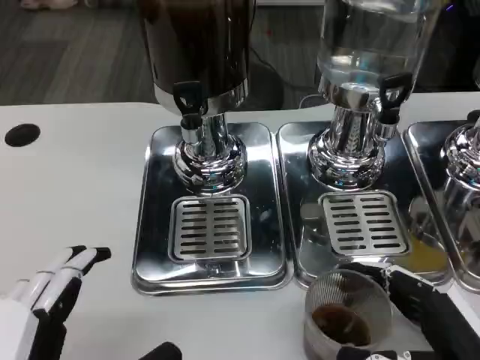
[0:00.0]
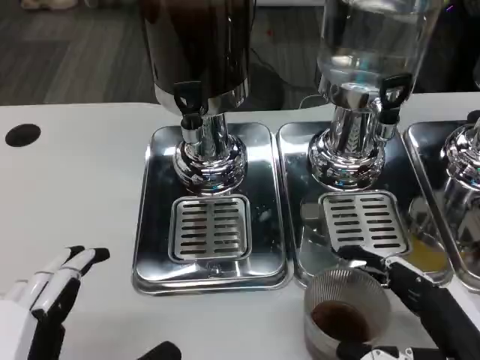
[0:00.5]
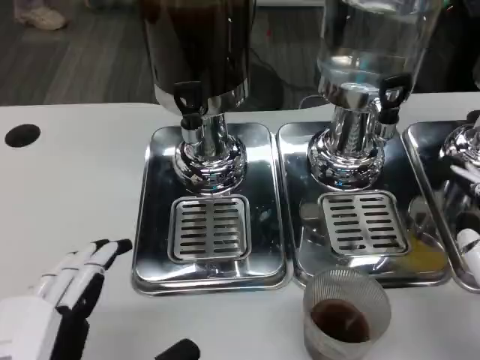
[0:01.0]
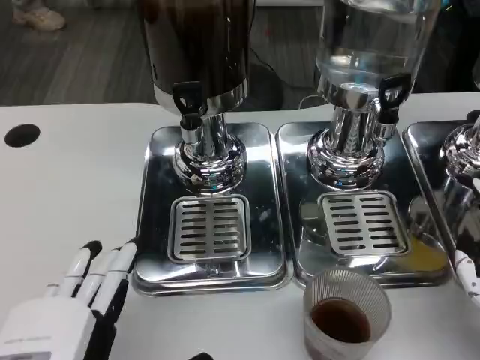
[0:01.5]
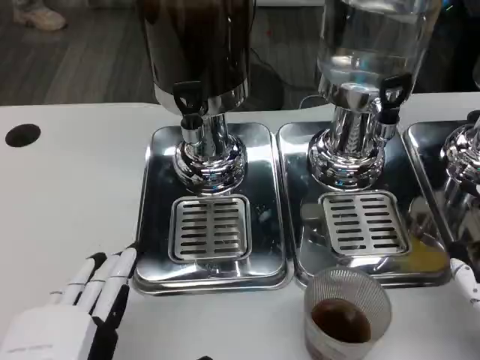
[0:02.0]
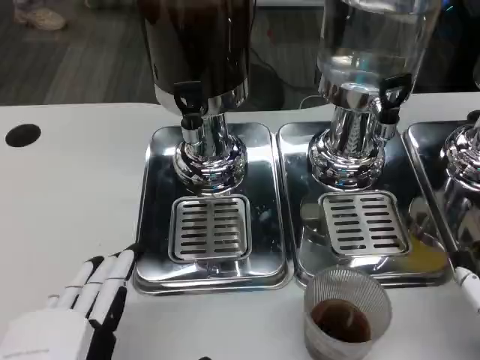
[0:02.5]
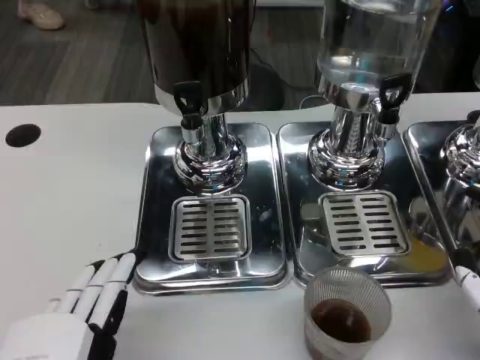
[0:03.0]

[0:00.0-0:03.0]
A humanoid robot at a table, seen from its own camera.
Task of the whole recording: Grasp the cup under the faucet to collect the drink, then remove the cup.
0:00.0 to 0:01.5: The right hand shifts approximately 5 cm upward.
0:01.5 to 0:03.0: There are only small adjustments of the hands.

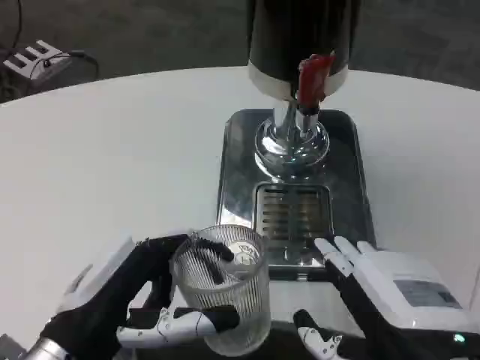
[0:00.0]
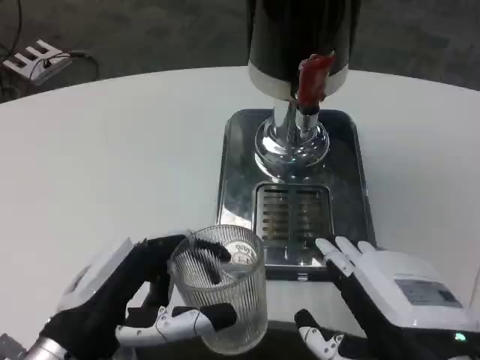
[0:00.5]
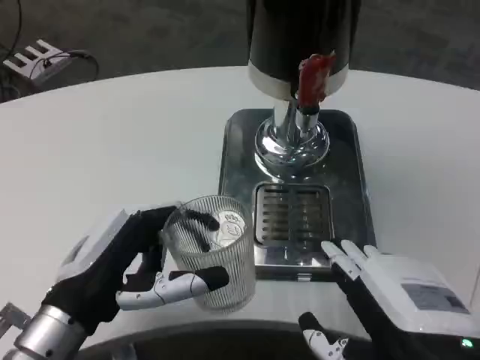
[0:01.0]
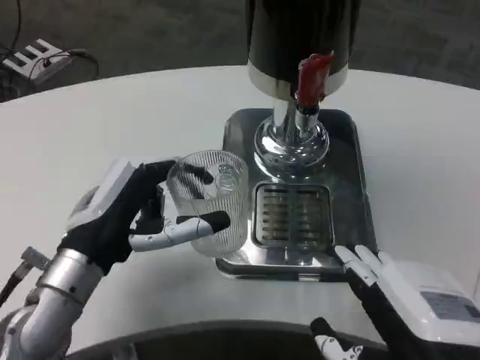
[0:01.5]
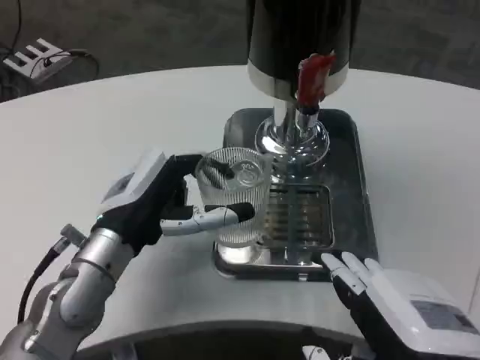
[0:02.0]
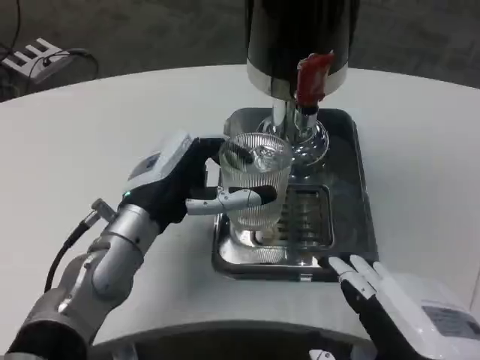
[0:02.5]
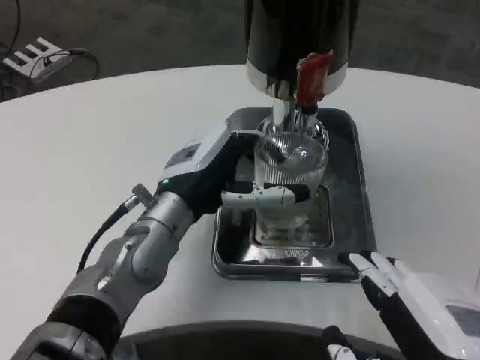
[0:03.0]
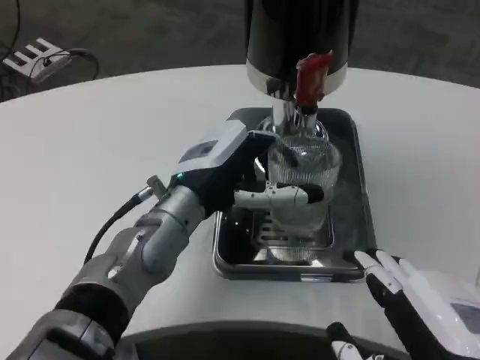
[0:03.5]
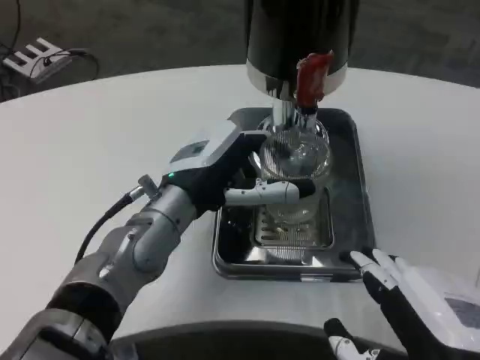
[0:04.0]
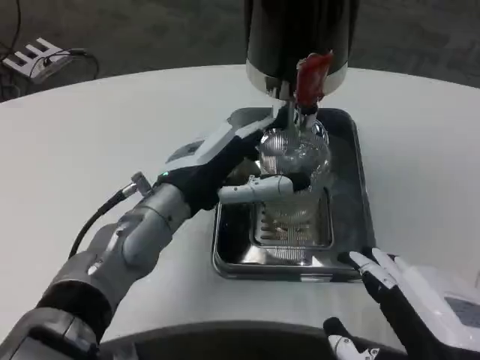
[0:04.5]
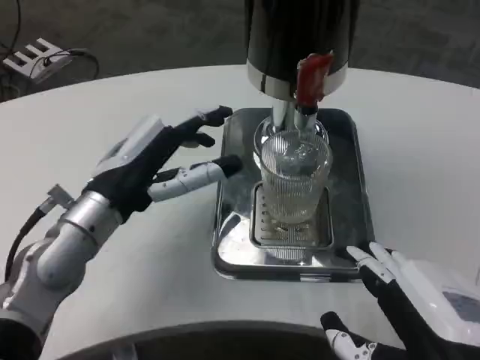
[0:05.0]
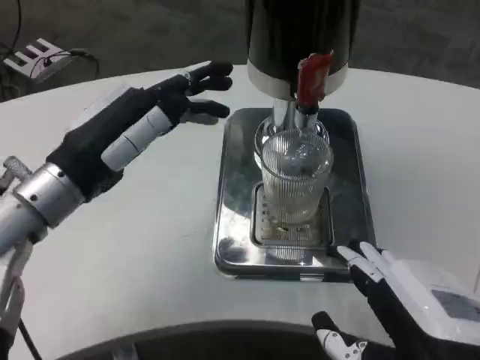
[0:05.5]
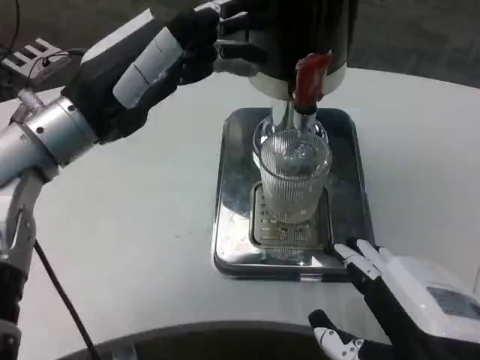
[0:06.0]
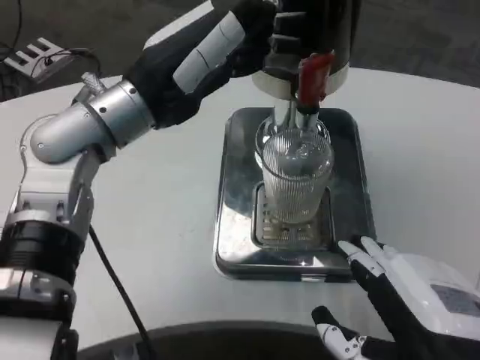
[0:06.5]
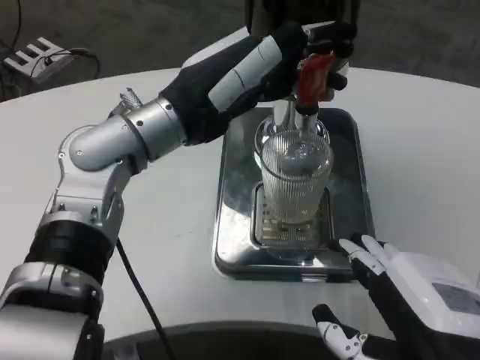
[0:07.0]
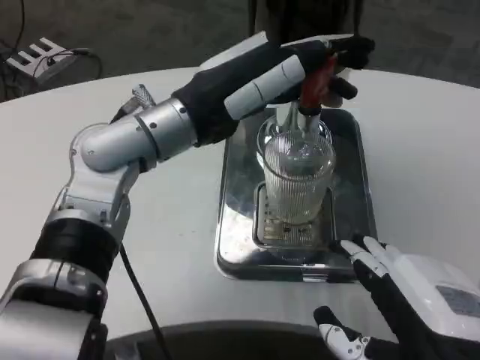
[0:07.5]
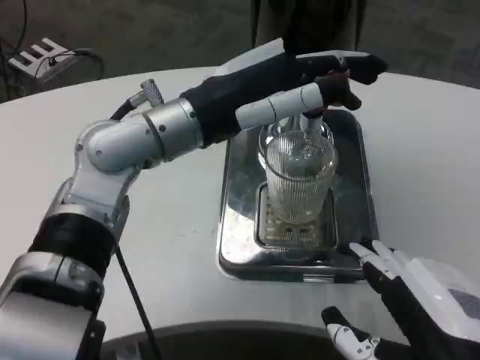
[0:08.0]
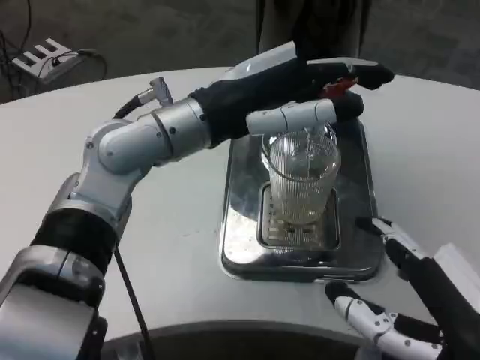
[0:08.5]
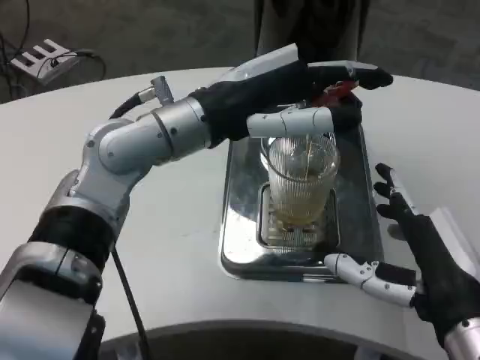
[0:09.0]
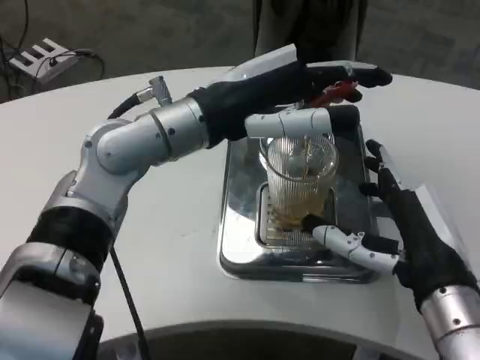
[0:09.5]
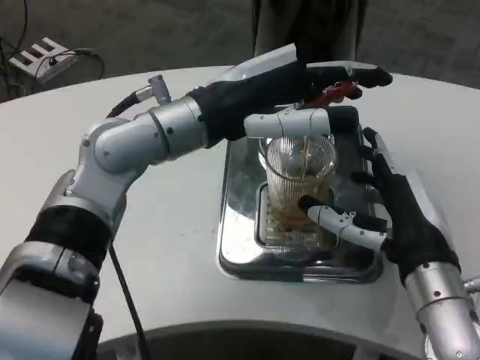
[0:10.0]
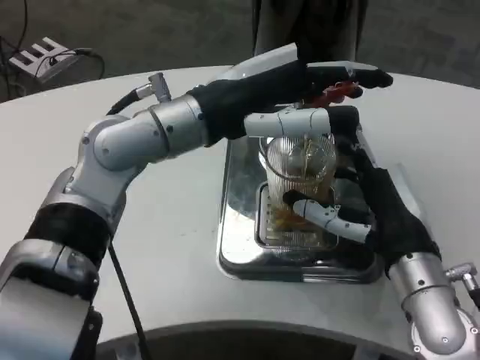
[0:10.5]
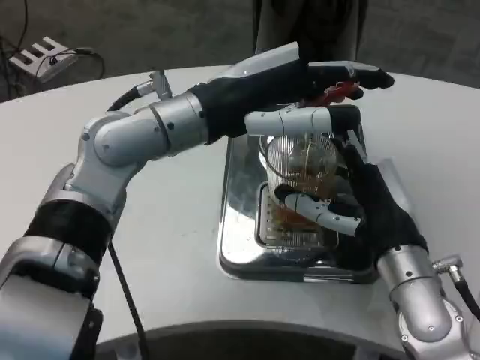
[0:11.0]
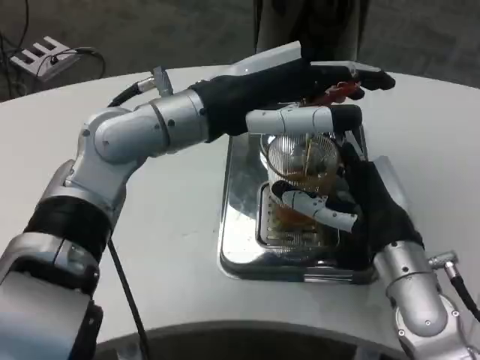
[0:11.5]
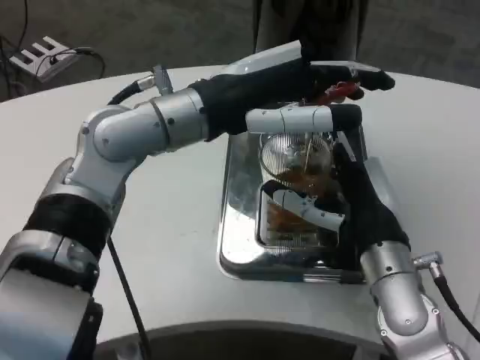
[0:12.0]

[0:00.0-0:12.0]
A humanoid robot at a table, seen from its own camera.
Task of the whole recording: Grasp the cup under the faucet to collect the drink, then remove the cup.
0:00.0 to 0:02.0: The left hand shifts approximately 10 cm forward.
0:02.0 to 0:04.0: The left hand is displaced to the right by some 5 cm.
0:04.0 to 0:06.0: The left hand travels upward and to the left by about 15 cm.
0:06.0 to 0:08.0: The left hand heads to the right, covering approximately 10 cm.
0:08.0 to 0:10.0: The right hand moves forward, some 15 cm.

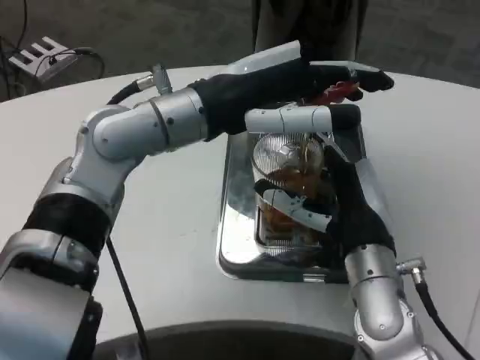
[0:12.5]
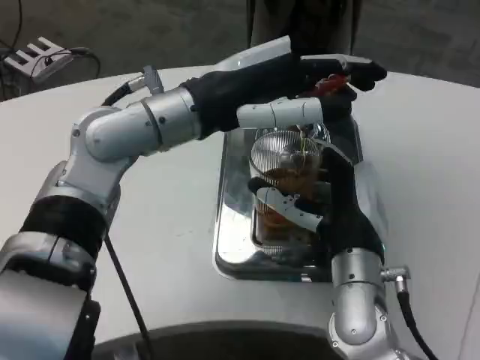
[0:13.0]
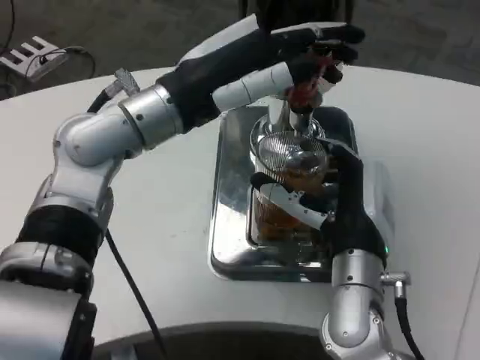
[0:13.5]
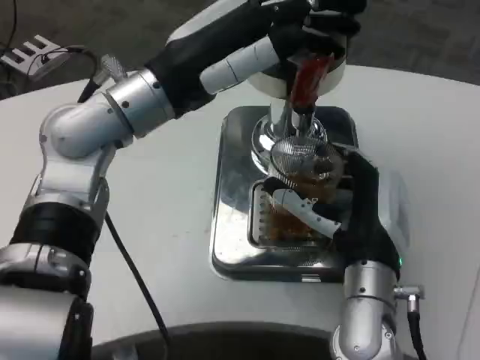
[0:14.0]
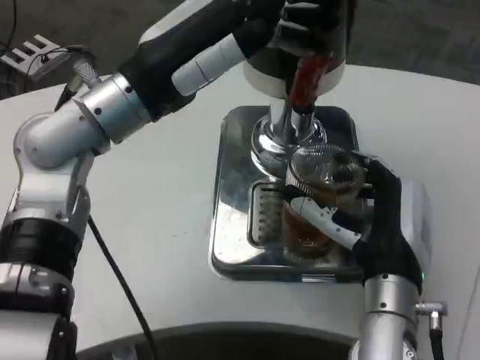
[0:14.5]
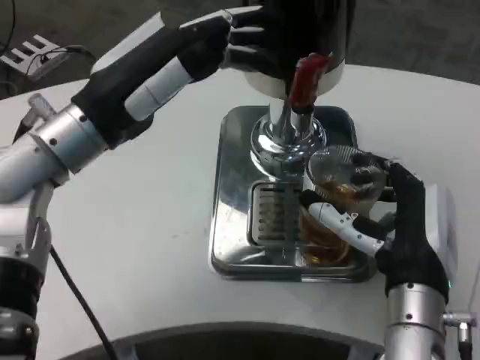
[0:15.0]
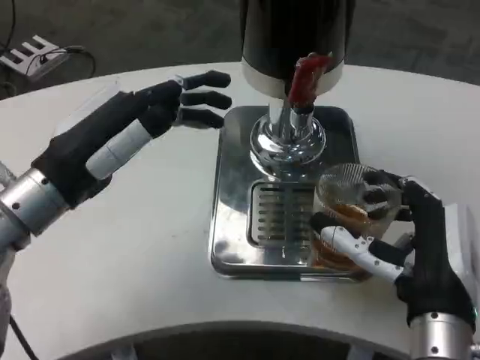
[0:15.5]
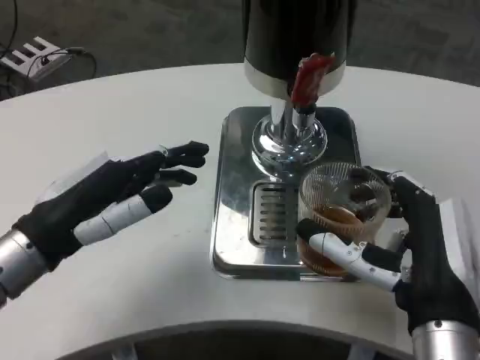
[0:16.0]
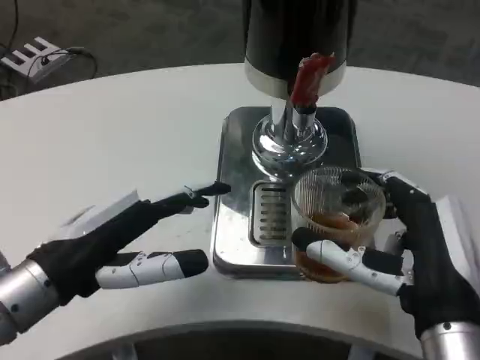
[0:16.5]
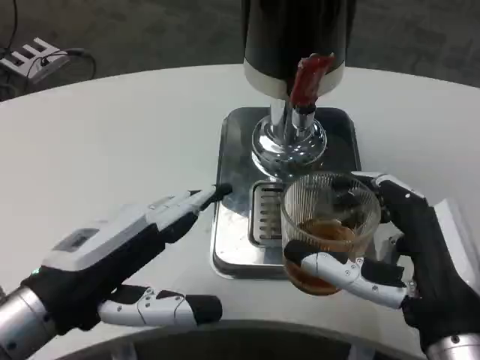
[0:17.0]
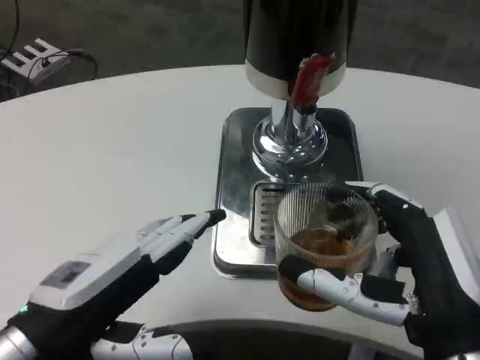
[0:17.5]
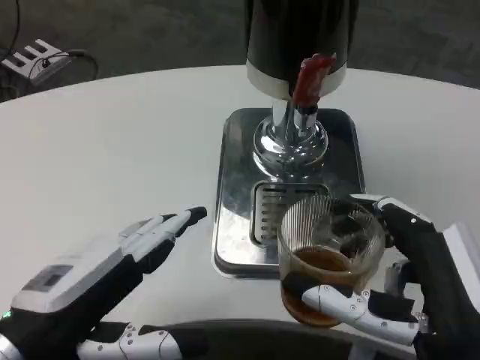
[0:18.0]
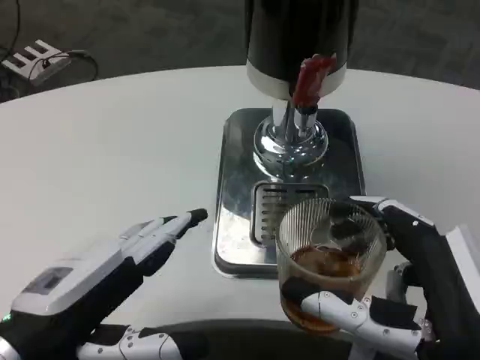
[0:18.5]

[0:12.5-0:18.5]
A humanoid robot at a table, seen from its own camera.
Task of the whole recording: Grasp the cup under the faucet to collect the drink, then remove the cup.
0:12.5 to 0:14.5: The left hand shifts by about 5 cm.
0:14.5 to 0:16.5: The right hand moves backward, some 10 cm, while the left hand travels downward, backward and to the left by about 15 cm.
0:16.5 to 0:18.5: Both hands move backward, some 5 cm.

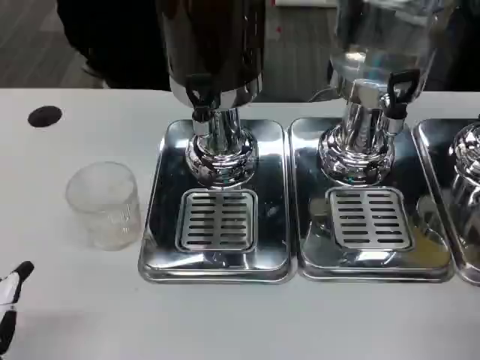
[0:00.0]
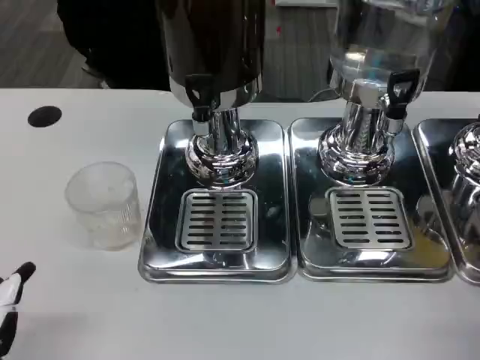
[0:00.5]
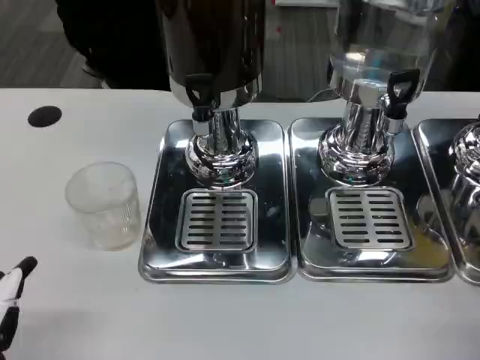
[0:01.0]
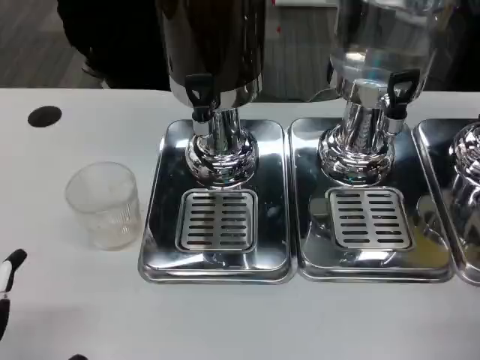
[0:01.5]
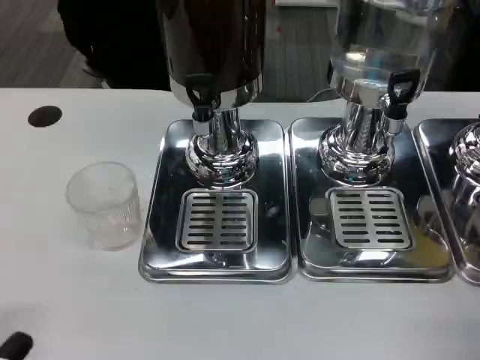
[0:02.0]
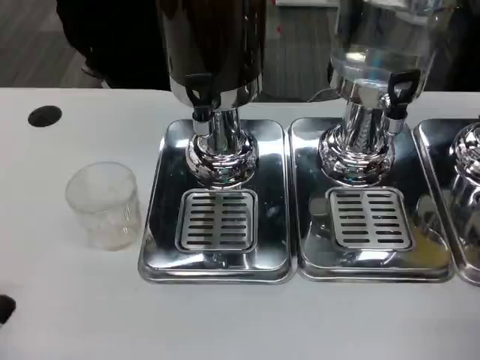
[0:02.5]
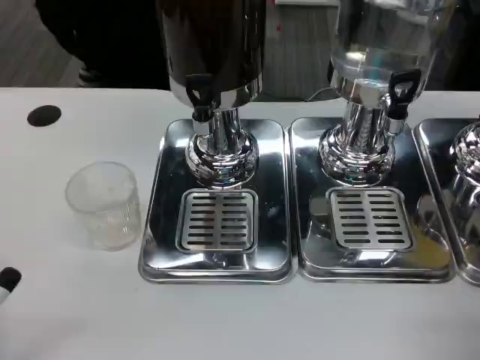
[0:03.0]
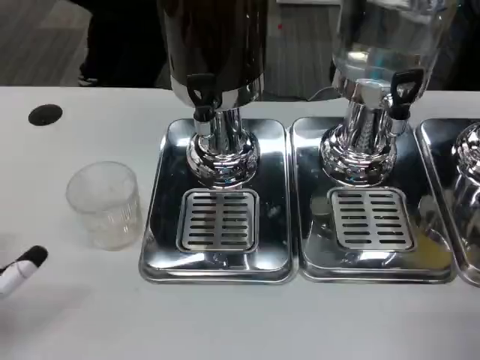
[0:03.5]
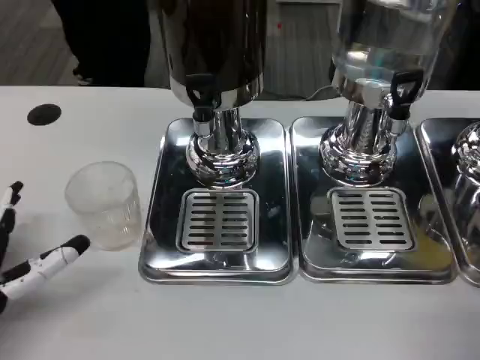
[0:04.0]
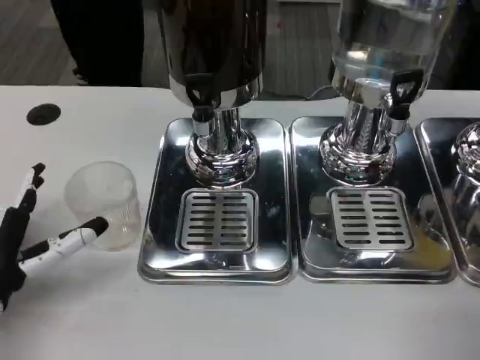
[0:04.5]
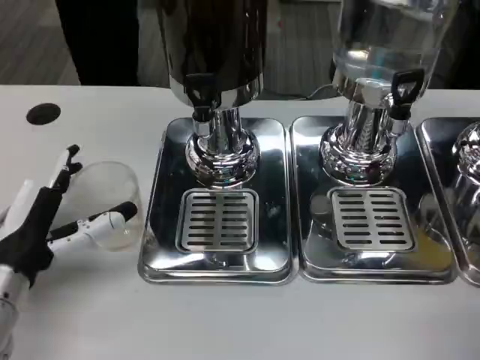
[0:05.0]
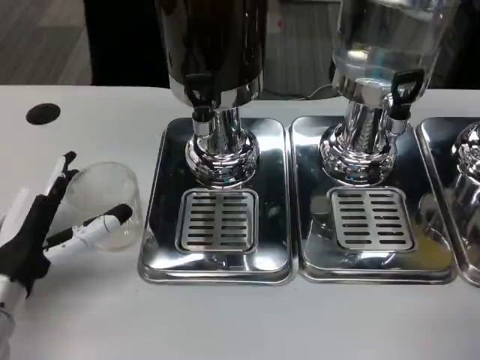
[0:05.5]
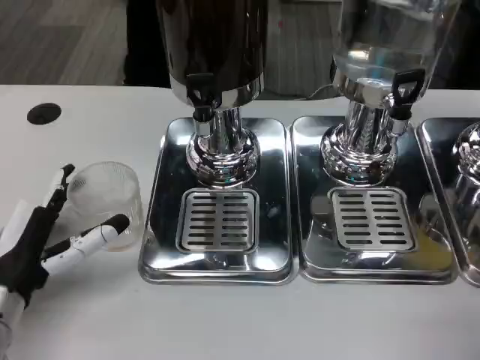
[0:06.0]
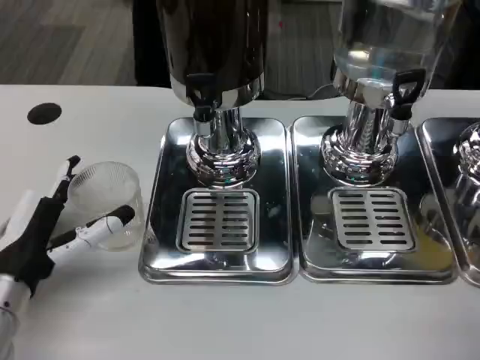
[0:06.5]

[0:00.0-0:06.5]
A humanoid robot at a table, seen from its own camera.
Task of the whole recording: Grasp the cup under the faucet to collect the drink, then remove the cup.
0:00.0 to 0:02.0: There are only small adjustments of the hands.
0:02.0 to 0:04.5: The left hand is displaced forward by roughly 15 cm.
0:04.5 to 0:06.5: The hands make only small movements.
